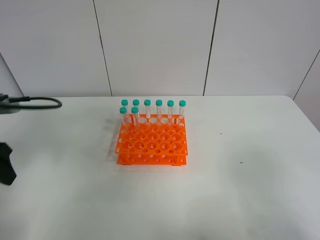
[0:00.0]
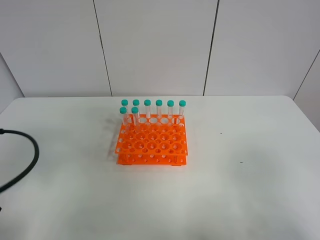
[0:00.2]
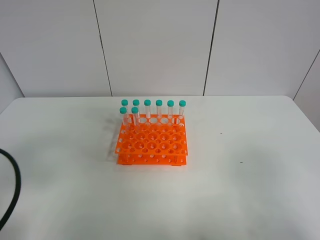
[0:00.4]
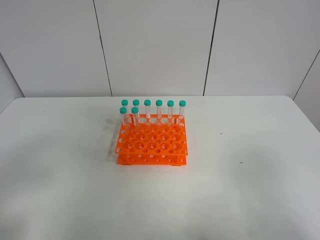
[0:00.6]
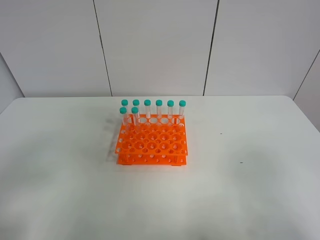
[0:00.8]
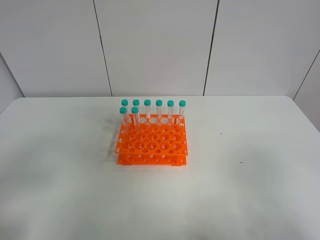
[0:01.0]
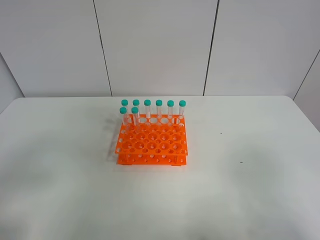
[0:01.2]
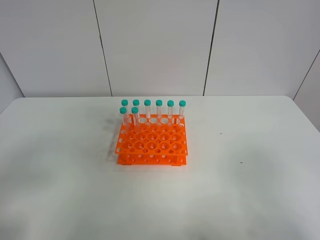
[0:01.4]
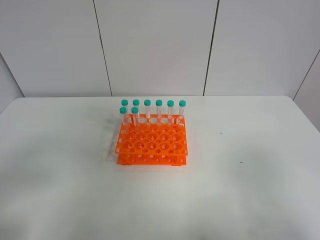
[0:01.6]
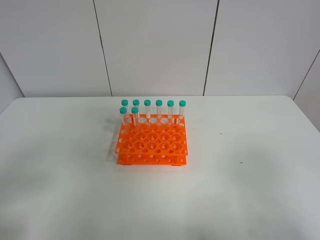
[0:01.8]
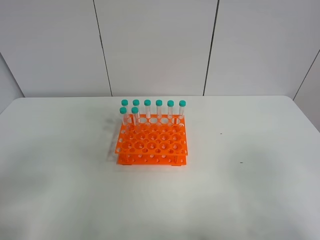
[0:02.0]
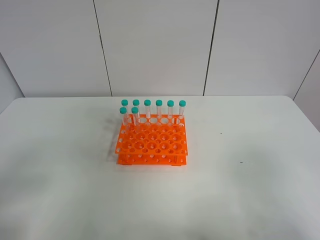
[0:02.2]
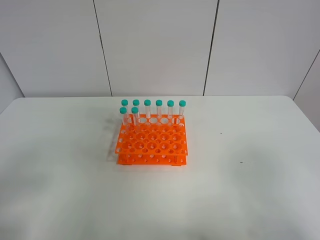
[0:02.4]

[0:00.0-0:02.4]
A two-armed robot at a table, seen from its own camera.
Task of the whole recording: Put the test tube on the table back onto the test tube rack.
0:00.0 to 0:01.2: The left gripper moves backward, some 15 cm.

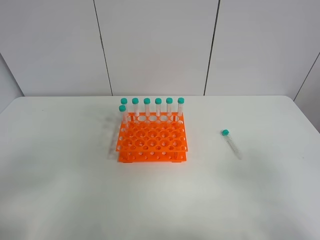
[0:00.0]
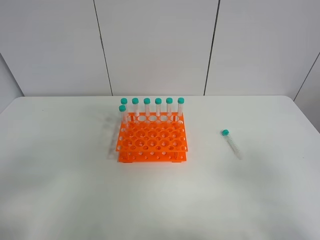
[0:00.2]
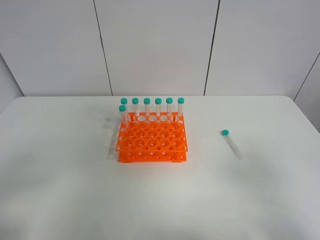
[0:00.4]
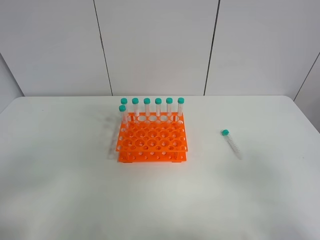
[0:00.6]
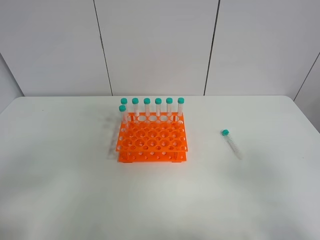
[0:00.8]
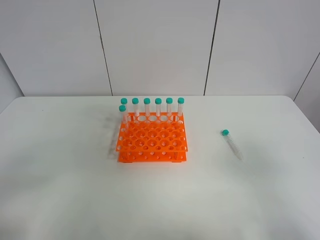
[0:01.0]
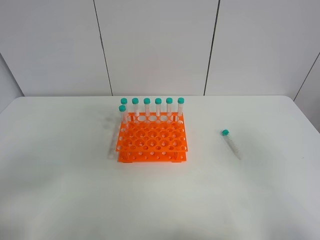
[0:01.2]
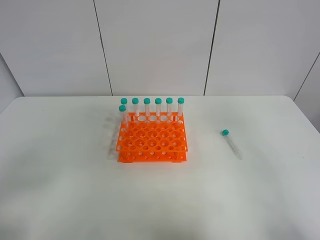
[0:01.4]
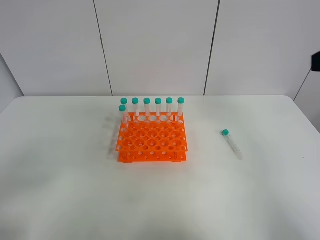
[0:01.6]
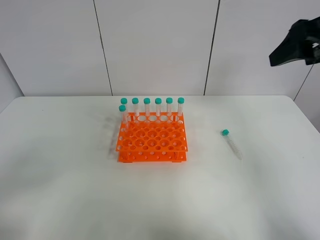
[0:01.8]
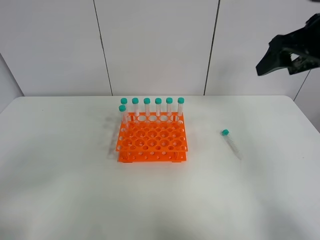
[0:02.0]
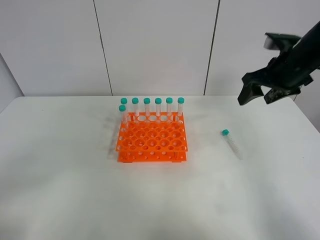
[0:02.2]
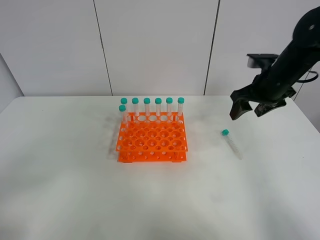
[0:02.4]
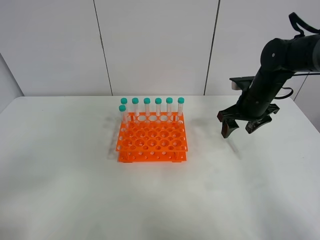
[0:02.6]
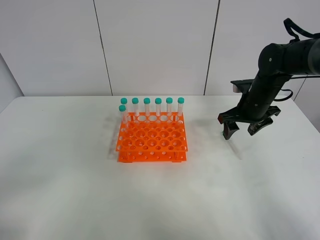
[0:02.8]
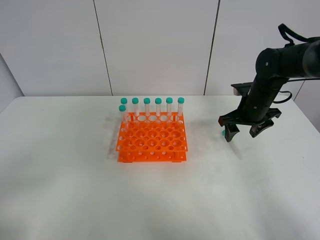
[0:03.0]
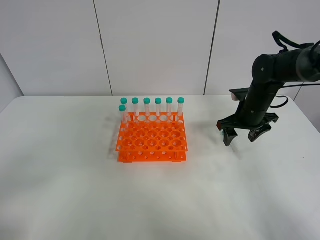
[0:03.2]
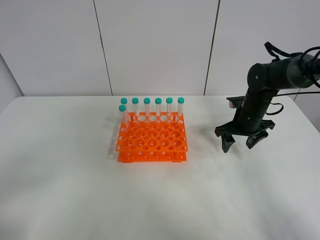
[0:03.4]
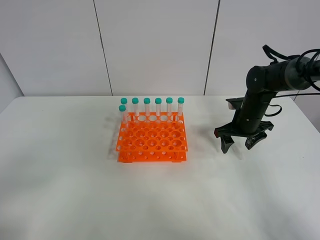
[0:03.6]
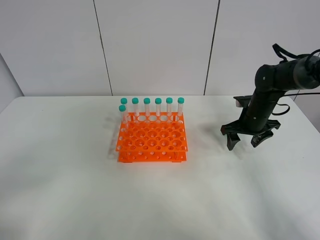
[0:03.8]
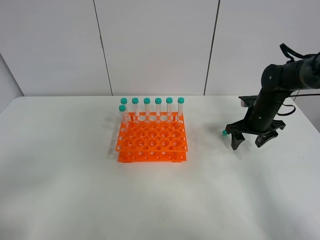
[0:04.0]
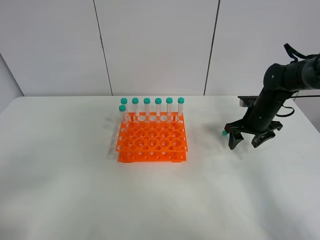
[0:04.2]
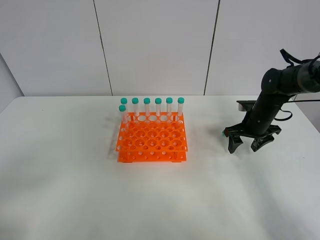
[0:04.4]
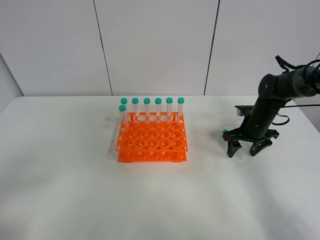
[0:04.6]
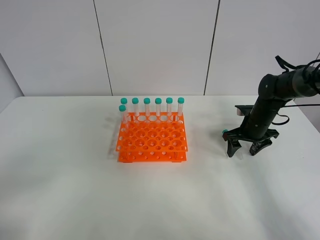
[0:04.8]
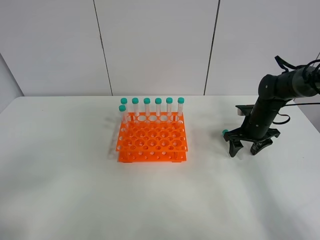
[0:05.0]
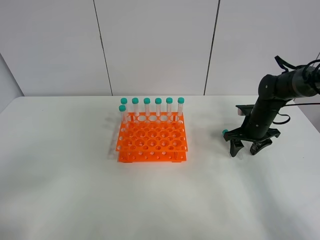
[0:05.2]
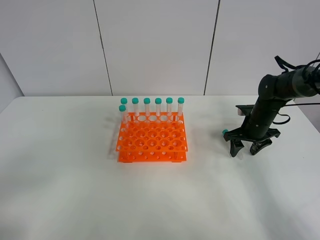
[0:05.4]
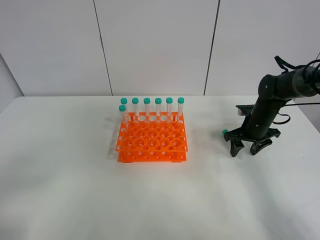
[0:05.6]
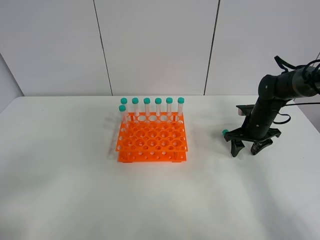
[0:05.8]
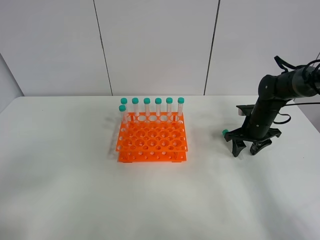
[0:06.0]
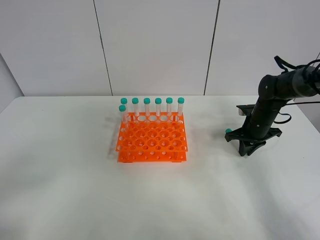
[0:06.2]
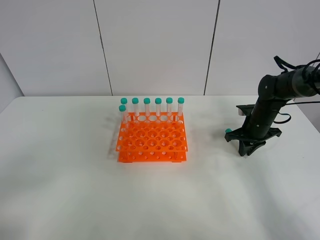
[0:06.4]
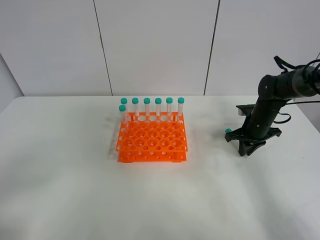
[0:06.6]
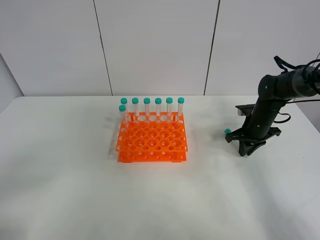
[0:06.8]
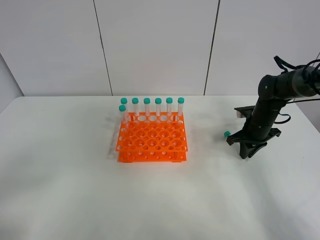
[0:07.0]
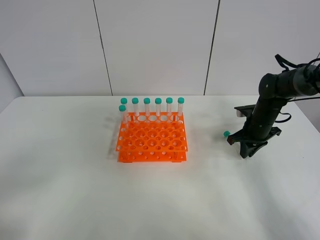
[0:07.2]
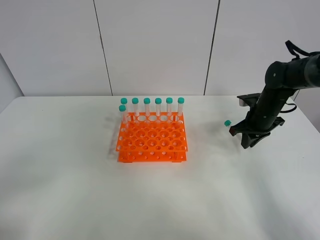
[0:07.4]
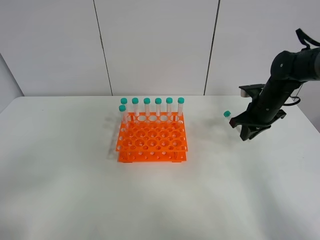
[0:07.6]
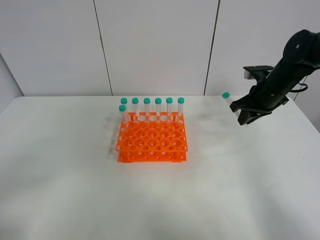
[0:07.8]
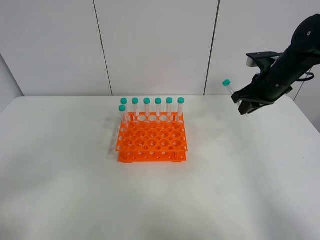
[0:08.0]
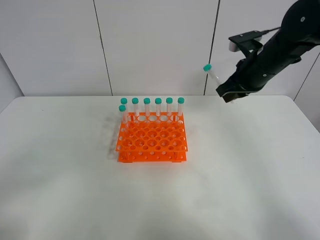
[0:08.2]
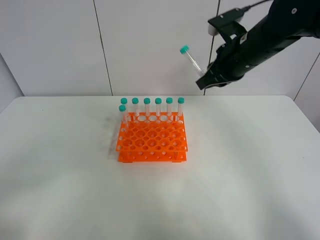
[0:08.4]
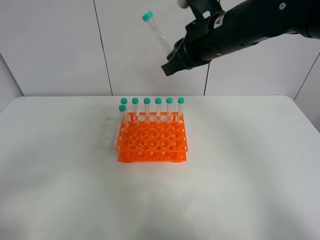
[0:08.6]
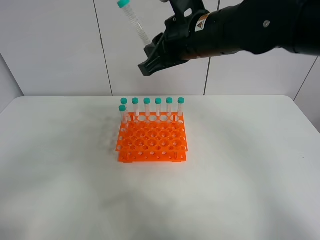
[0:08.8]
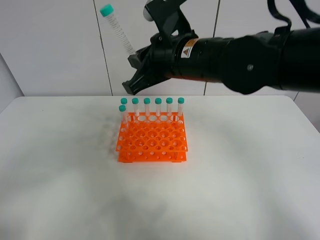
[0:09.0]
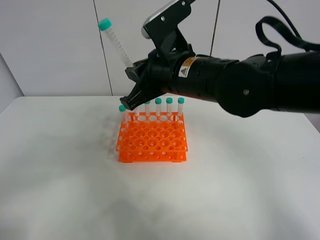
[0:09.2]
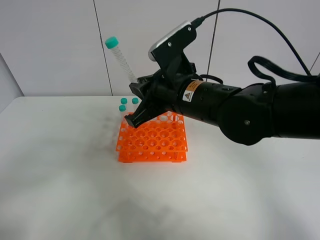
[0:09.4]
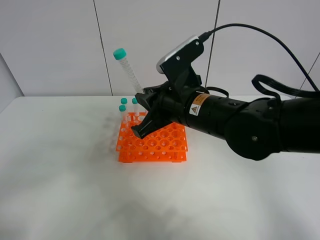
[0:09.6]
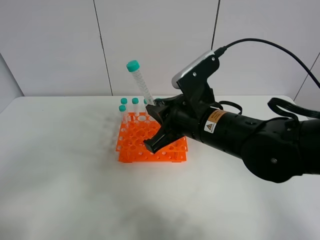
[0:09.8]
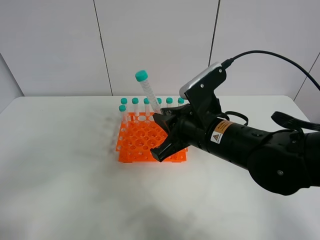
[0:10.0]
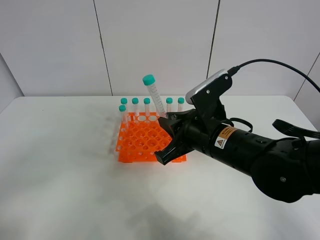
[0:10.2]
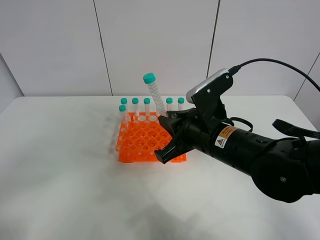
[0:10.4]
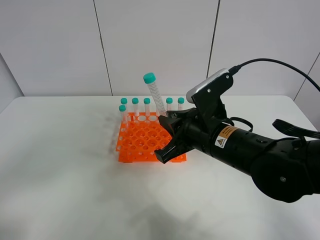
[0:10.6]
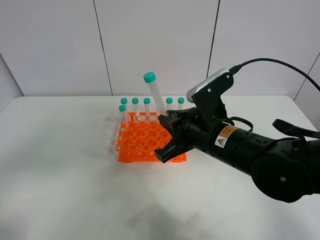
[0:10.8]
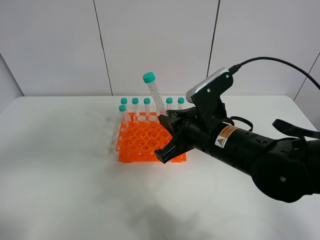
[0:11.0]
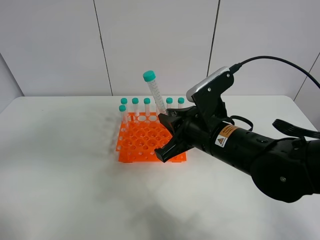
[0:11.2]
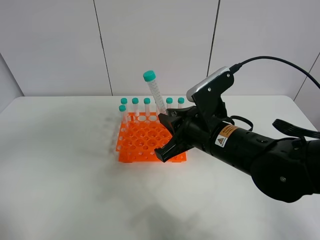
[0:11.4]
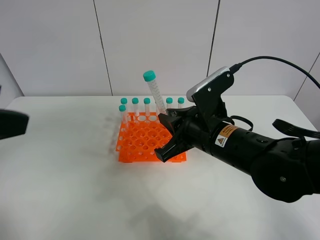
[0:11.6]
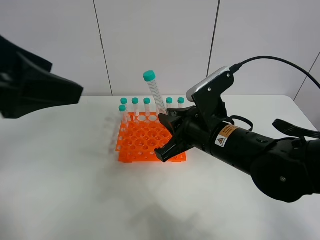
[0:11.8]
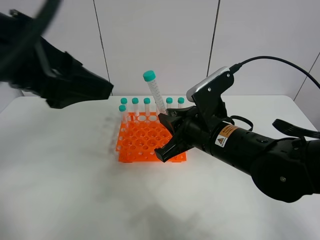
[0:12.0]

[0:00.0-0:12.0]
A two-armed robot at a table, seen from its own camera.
Task of the whole recording: Put the test tube on the table back onto the test tube rack.
Step, 0:00.0 to 0:06.4: Pick up the test tube with the right gripper.
0:00.0 to 0:01.6: The right gripper heads forward and upward, covering approximately 20 cm.
0:01.6 to 0:03.0: The right gripper goes approximately 30 cm downward and forward.
0:03.0 to 0:04.4: The right gripper travels downward by roughly 5 cm.
0:04.4 to 0:06.0: The two grippers keep their place.
0:06.0 to 0:07.6: The right gripper goes some 5 cm upward, and closes.
0:07.6 to 0:09.0: The right gripper heads to the left, upward and backward, covering some 30 cm.
0:09.0 to 0:10.4: The right gripper is displaced downward, backward and to the right by approximately 15 cm.
0:10.4 to 0:12.0: The left gripper heads forward, to the right and upward, covering roughly 25 cm.

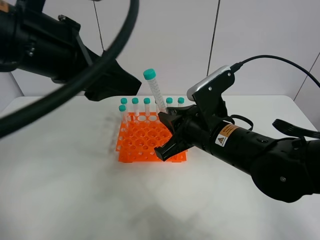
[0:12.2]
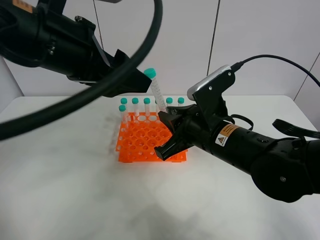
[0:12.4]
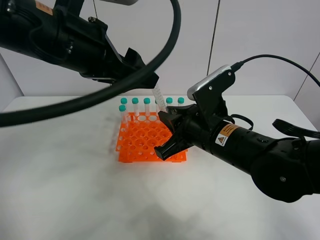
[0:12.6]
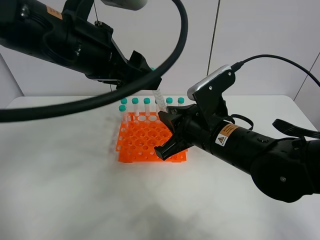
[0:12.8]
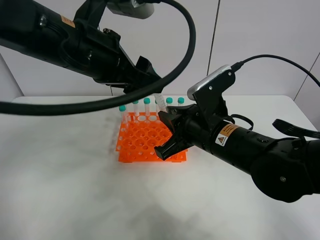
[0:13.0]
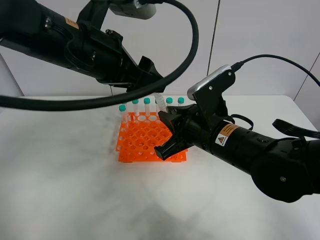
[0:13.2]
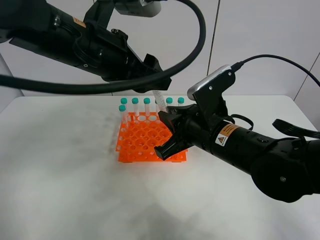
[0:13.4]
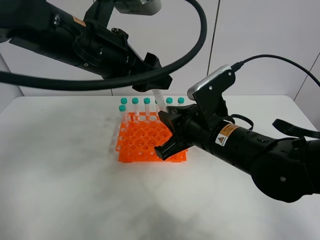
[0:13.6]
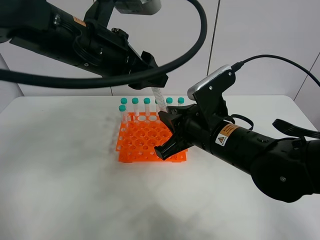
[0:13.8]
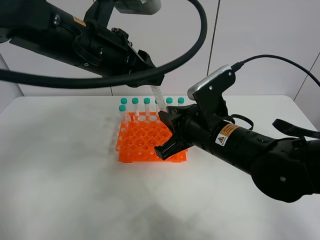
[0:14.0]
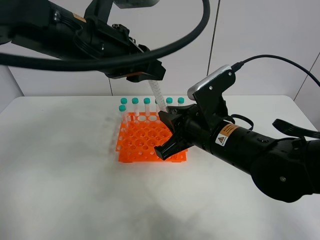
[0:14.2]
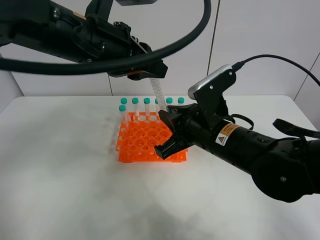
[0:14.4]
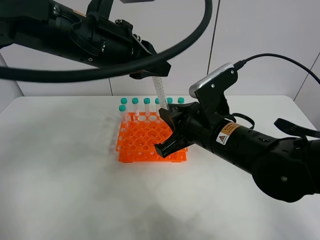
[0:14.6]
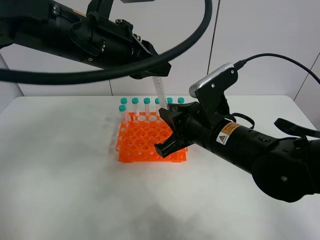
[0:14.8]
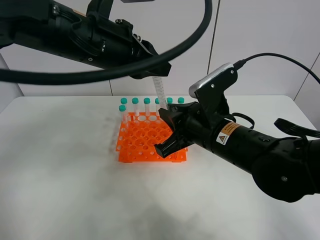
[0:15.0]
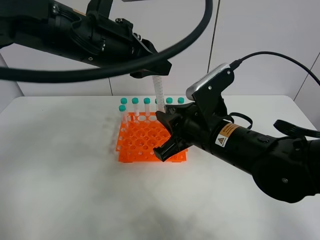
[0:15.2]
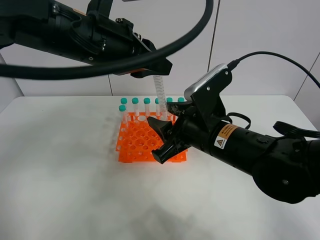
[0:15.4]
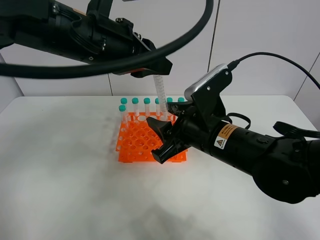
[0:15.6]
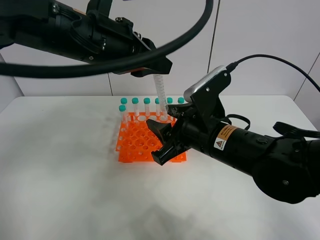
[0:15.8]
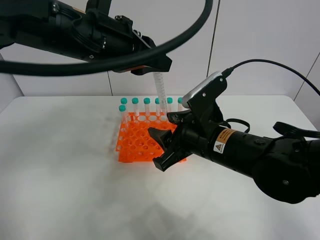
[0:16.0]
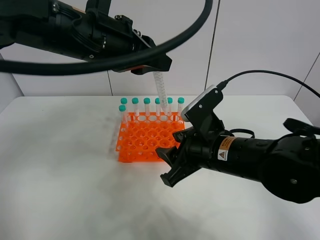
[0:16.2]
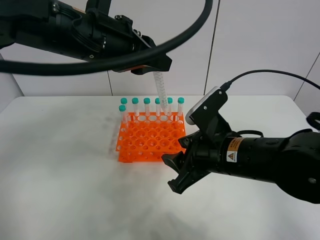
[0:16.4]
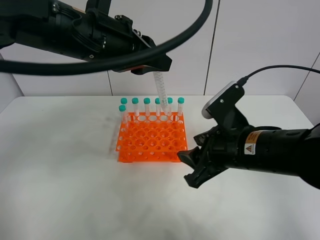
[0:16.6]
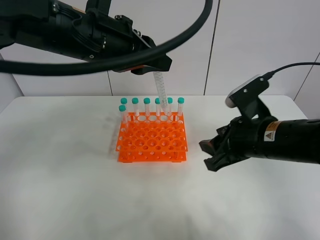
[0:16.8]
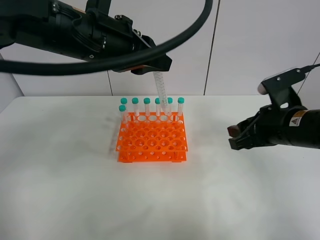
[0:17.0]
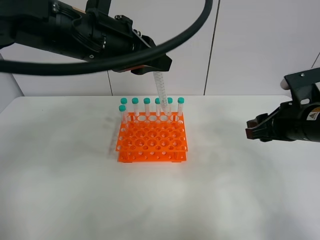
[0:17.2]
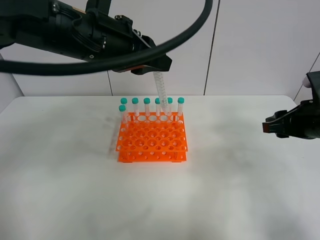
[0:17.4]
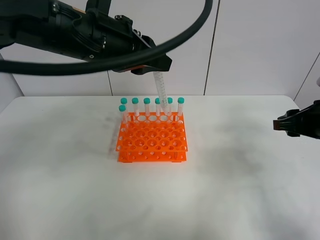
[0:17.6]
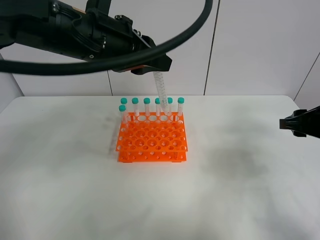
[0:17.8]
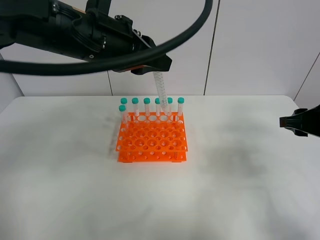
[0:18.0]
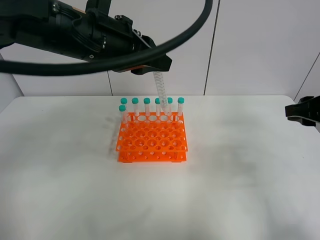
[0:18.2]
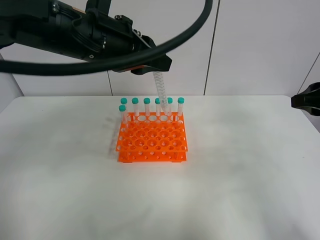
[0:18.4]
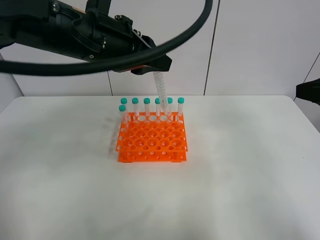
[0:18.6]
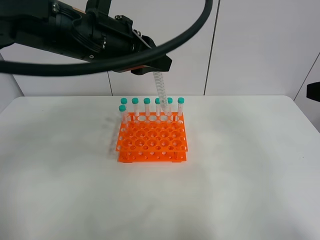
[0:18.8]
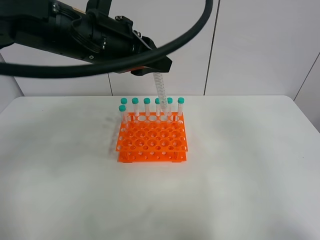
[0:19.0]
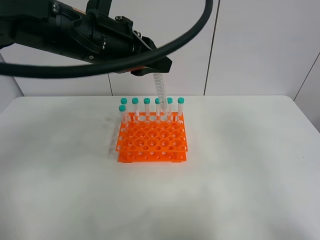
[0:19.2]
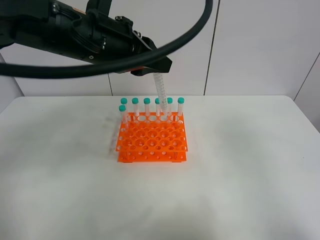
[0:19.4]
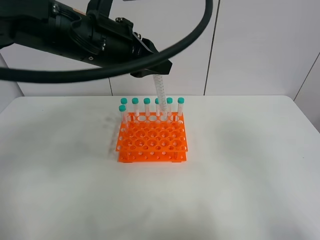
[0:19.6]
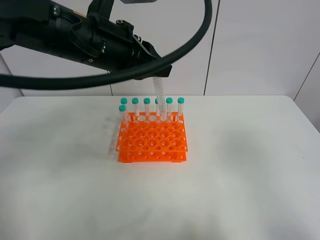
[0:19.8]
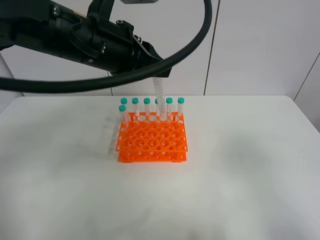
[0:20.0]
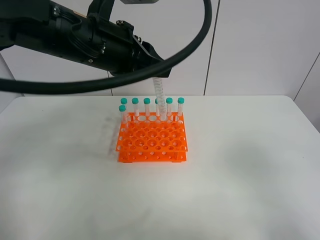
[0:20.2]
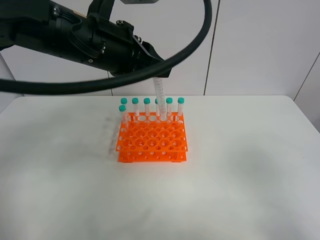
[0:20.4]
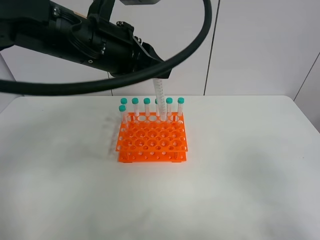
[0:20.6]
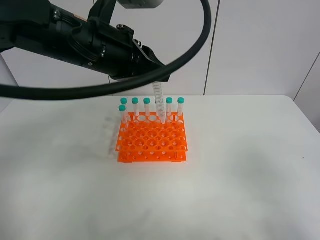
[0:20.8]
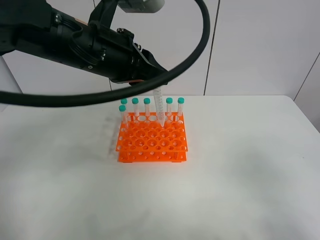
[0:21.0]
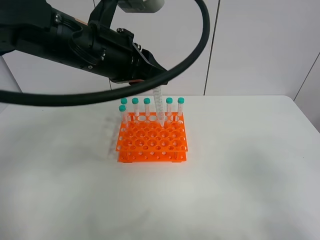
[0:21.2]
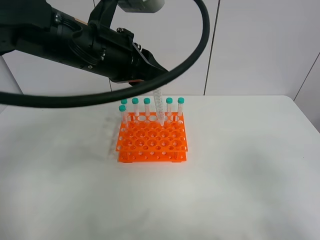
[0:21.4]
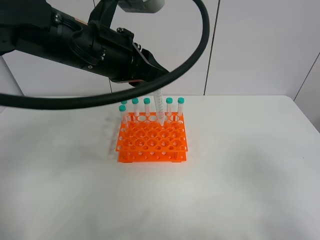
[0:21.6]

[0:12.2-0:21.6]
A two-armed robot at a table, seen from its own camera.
Task of the whole recording: Put the test tube on the table back onto the test tube rack.
Step, 0:12.2 to 0:15.2: Move the test tube from the right gripper to the left gripper.
0:12.2 to 0:13.8: The left gripper moves forward, about 5 cm, and closes.
0:13.8 to 0:15.4: The right gripper opens its fingers. The left gripper closes.
0:15.4 to 0:17.0: The right gripper is displaced to the right by about 15 cm.
0:17.0 to 0:18.4: The right gripper is displaced upward and to the right by about 10 cm.
0:18.4 to 0:20.0: The right gripper heads backward, covering about 20 cm.
0:20.0 to 0:21.6: The right gripper travels downward by approximately 5 cm.
